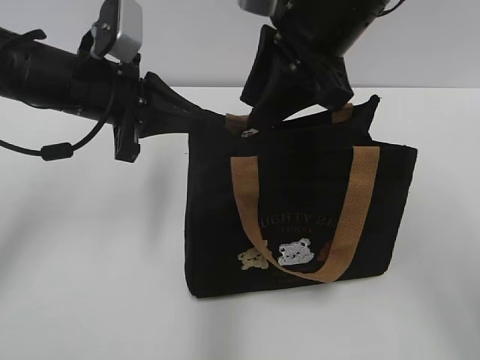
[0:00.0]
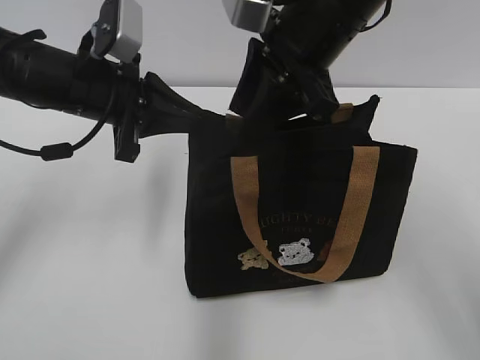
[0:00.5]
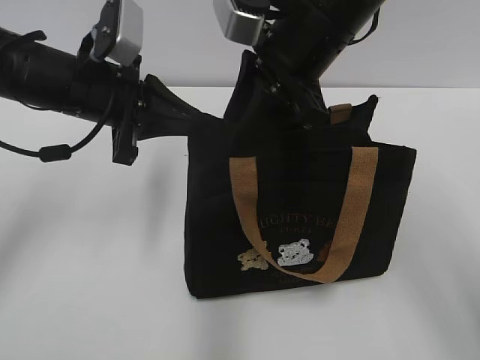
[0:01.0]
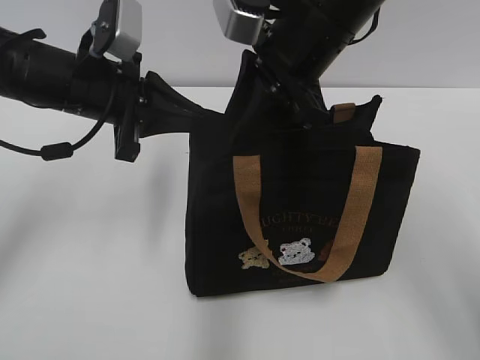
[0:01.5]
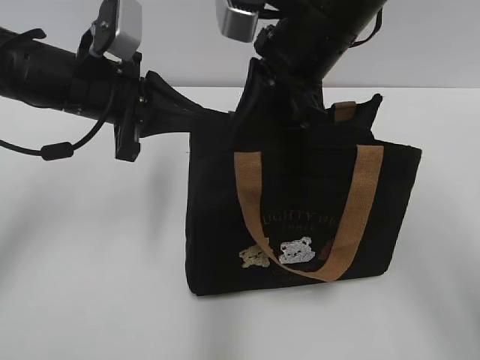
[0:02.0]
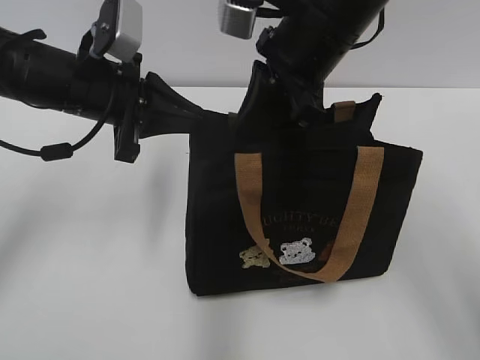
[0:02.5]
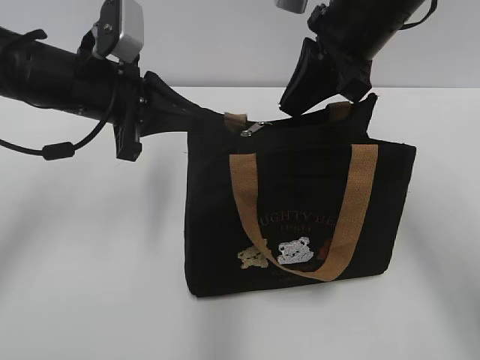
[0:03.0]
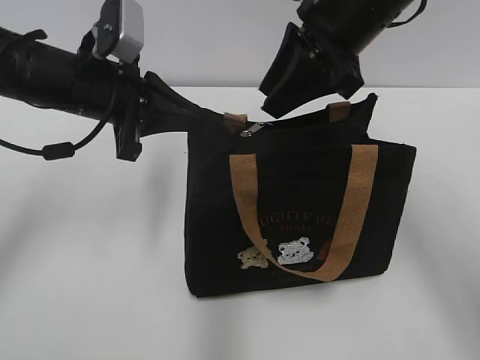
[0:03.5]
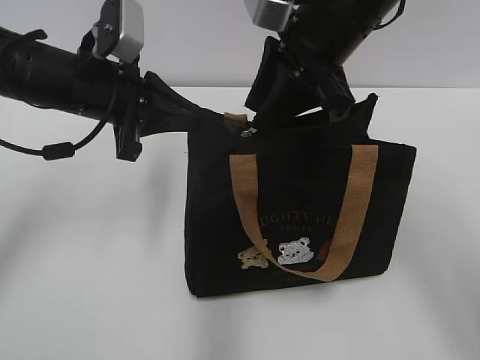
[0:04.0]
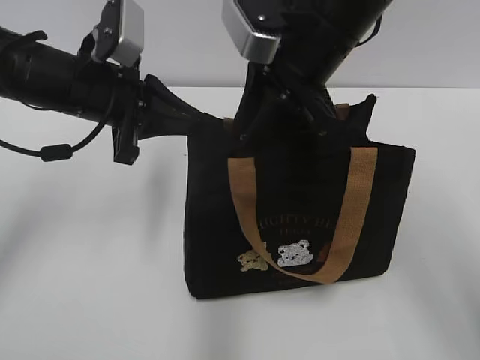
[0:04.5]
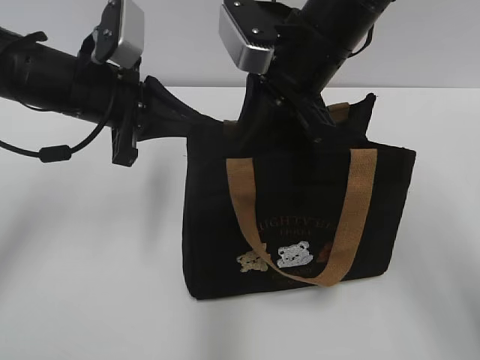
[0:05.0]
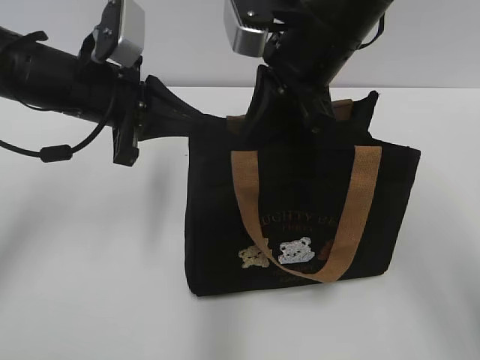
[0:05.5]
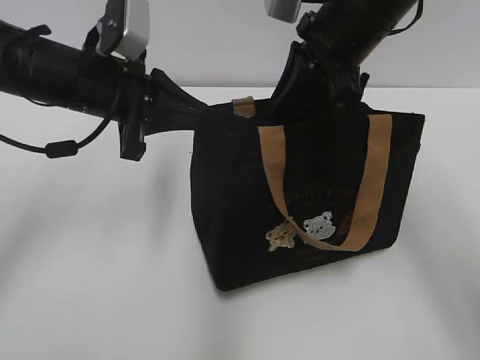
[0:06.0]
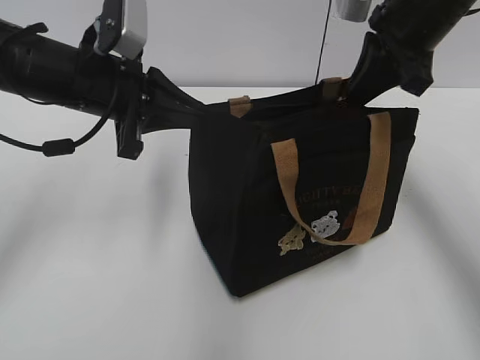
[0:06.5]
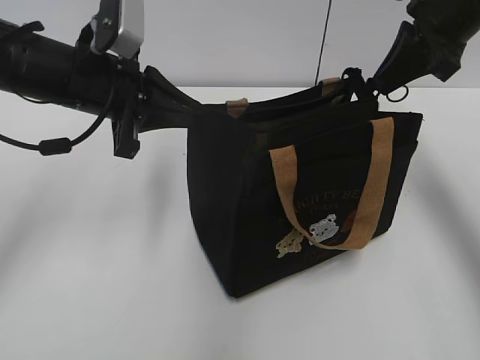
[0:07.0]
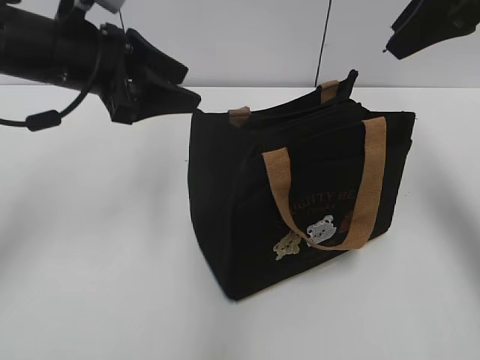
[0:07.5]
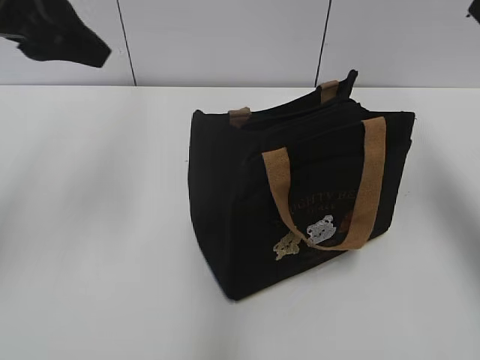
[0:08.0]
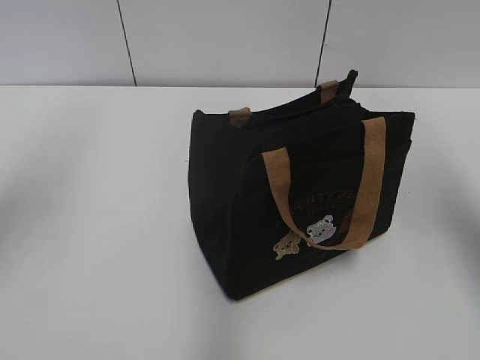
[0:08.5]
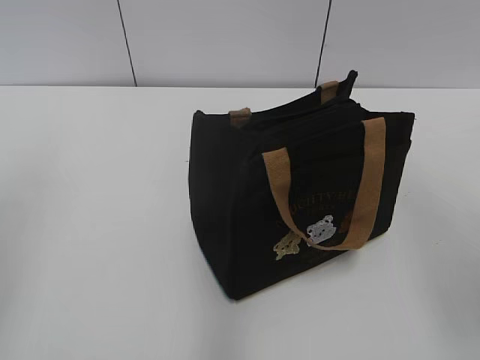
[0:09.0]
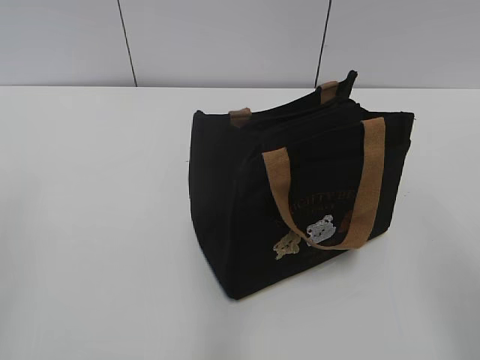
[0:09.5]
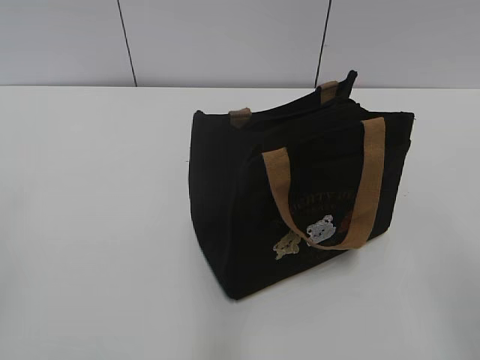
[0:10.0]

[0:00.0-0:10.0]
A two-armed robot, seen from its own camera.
Step, 0:00.0 to 0:07.0: Pull open the zipper with your right hand.
0:00.0 to 0:02.0: The right gripper closes up.
0:02.0 to 0:04.0: The right gripper opens.
0:04.0 to 0:06.0: The right gripper closes.
0:06.0 to 0:08.0: The right gripper moves to the right and upward, approximately 15 cm, and opens; the left gripper goes roughly 15 cm upward and to the left, and opens up.
0:08.0 to 0:10.0: The right gripper goes about 30 cm backward and downward, while the left gripper goes roughly 30 cm backward and to the left.

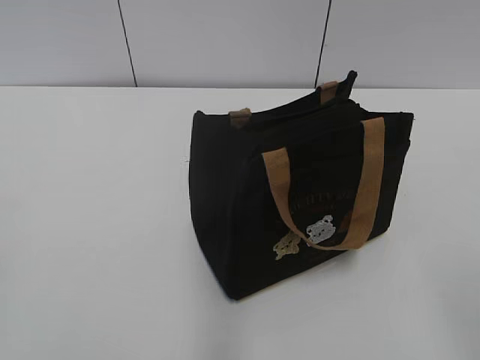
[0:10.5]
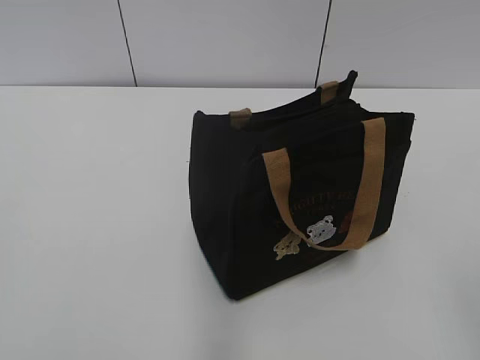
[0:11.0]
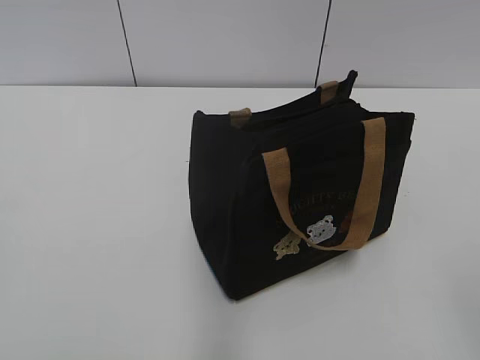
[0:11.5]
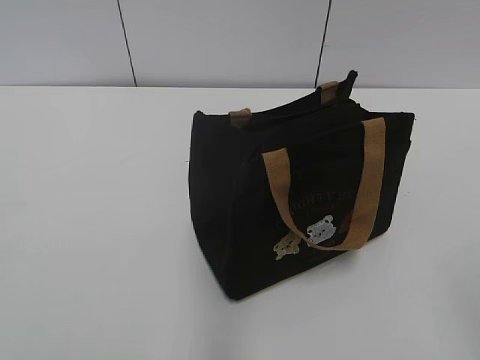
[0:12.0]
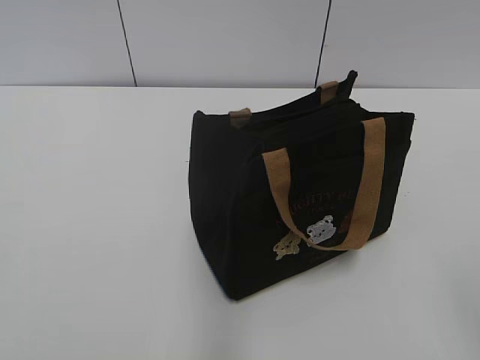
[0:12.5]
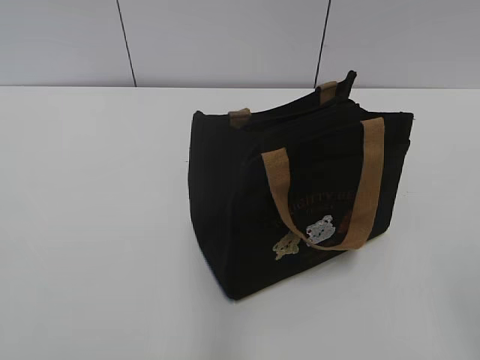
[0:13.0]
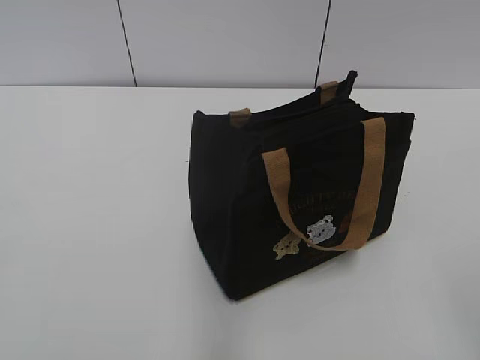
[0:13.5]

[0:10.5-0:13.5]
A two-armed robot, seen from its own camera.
0:12.0 to 0:13.5: The two grippers keep their place.

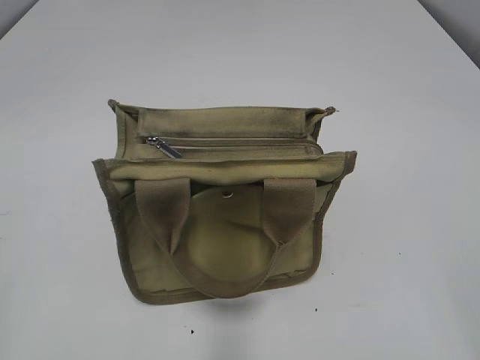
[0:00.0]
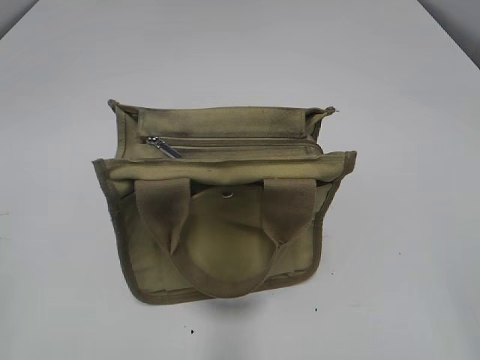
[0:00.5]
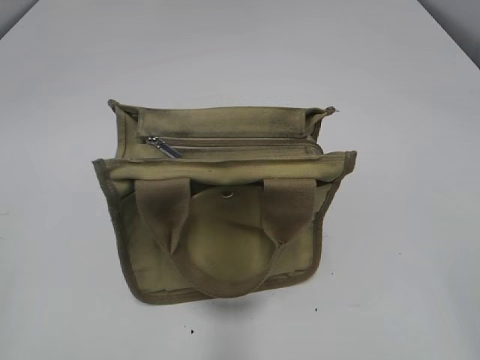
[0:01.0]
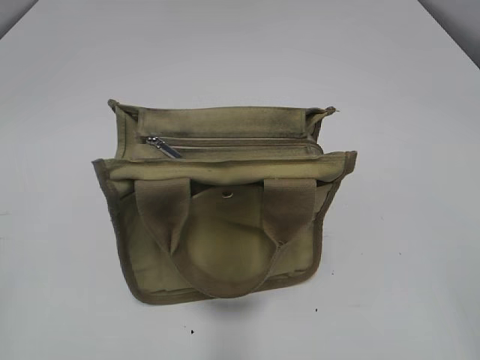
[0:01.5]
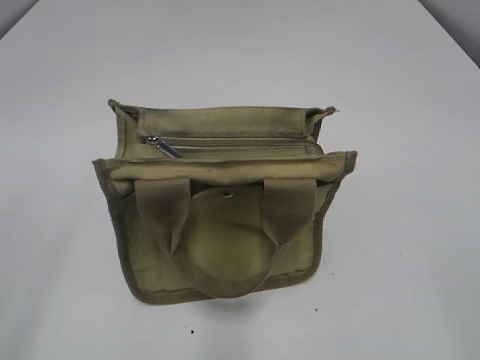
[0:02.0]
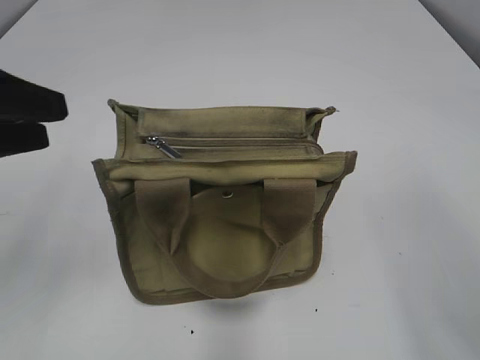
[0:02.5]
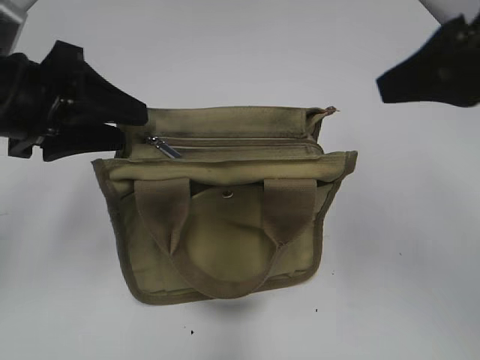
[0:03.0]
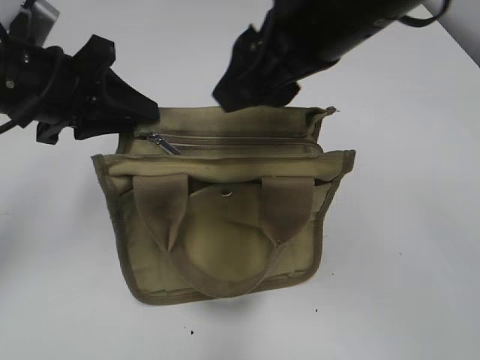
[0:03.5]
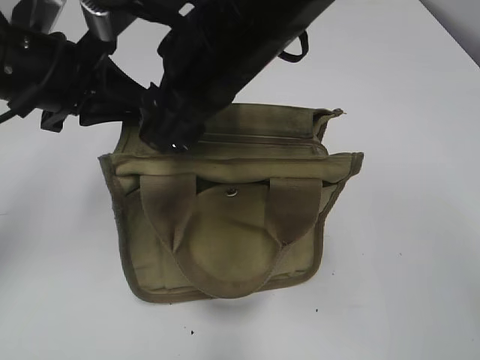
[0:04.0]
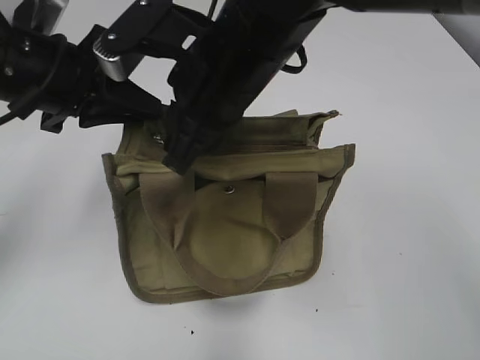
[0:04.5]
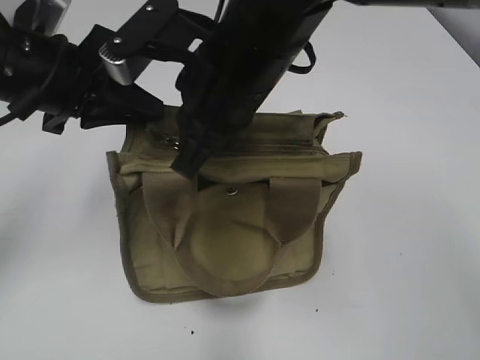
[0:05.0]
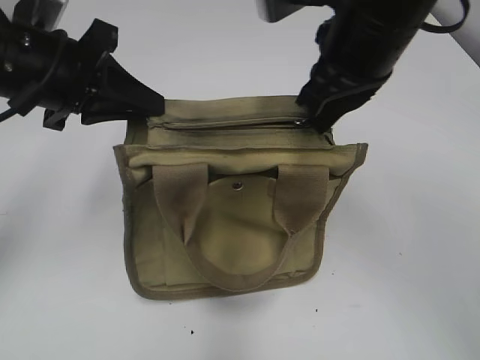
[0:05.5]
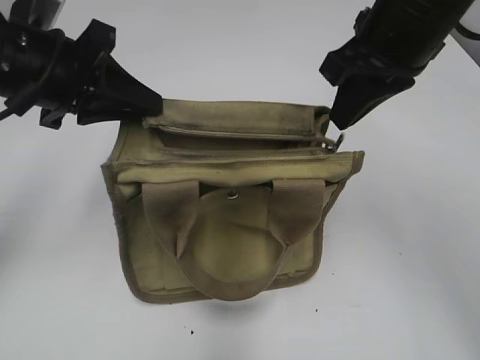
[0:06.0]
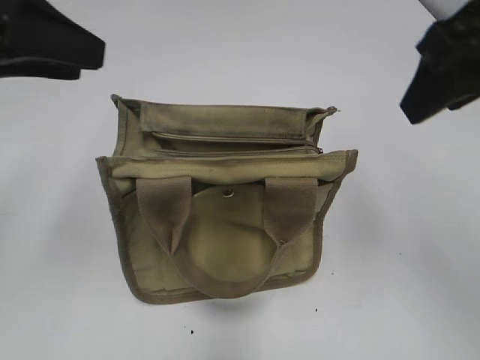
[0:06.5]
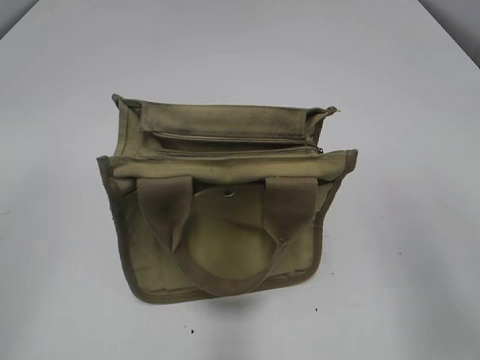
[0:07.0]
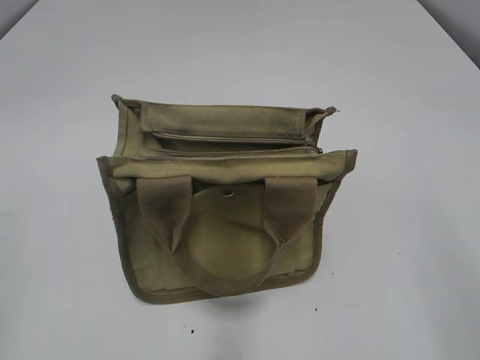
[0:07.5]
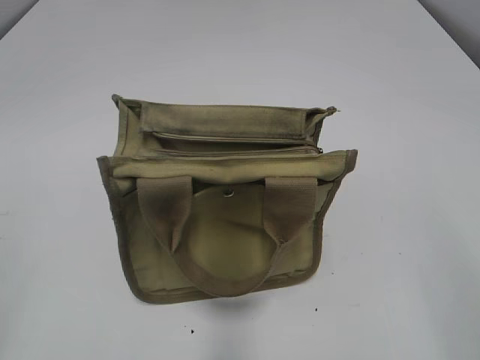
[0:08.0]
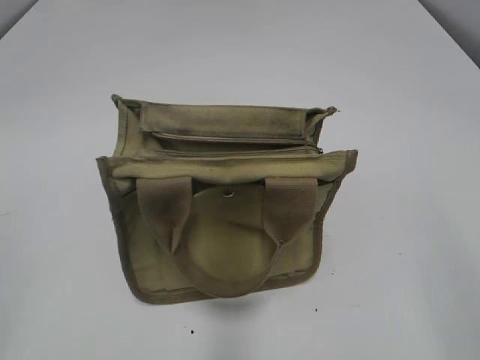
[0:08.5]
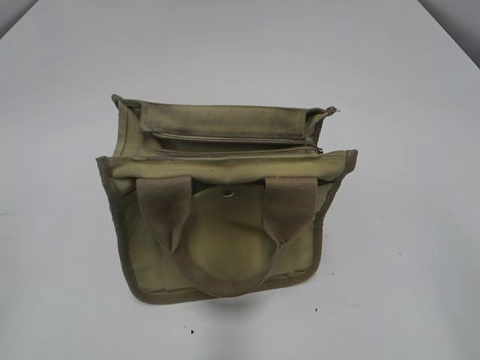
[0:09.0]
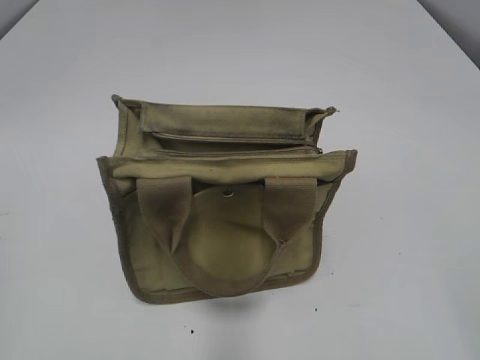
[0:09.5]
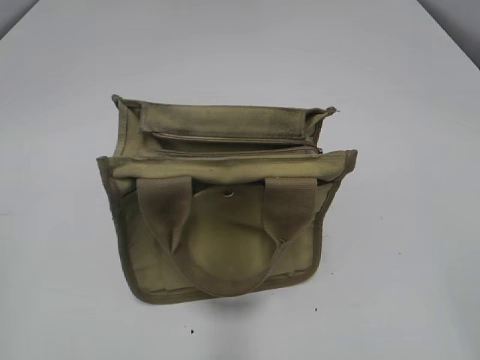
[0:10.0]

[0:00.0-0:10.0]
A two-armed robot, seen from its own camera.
Step, 0:00.0 to 0:06.0: Pull open the zipper with your right hand.
0:02.0 to 0:04.0: The left gripper travels forward and to the right by roughly 25 cm, and closes up. The right gripper is displaced forward and to the left by approximately 40 cm.
0:04.0 to 0:06.0: The right gripper shifts about 15 cm to the right, and closes.
0:06.0 to 0:08.0: The right gripper goes approximately 30 cm backward and to the right, and opens. Meanwhile the left gripper shifts about 30 cm backward and to the left, and opens its fingers.

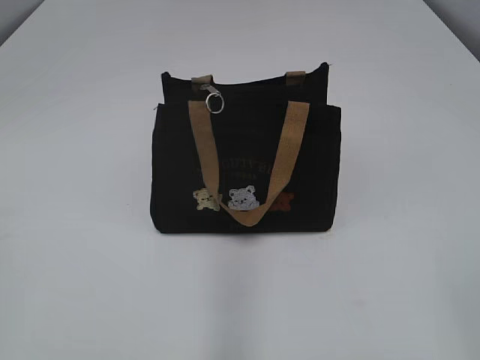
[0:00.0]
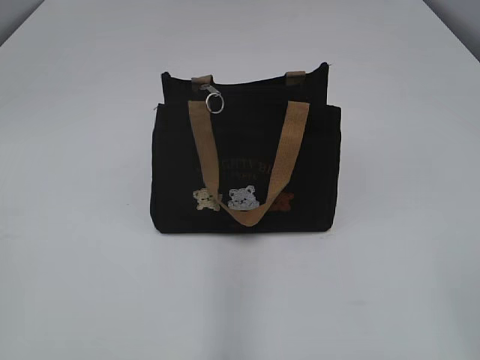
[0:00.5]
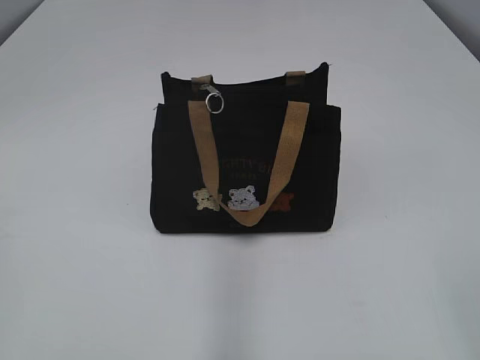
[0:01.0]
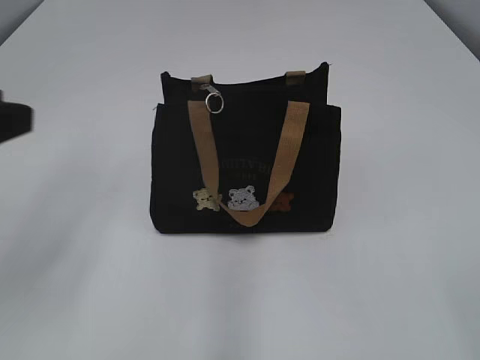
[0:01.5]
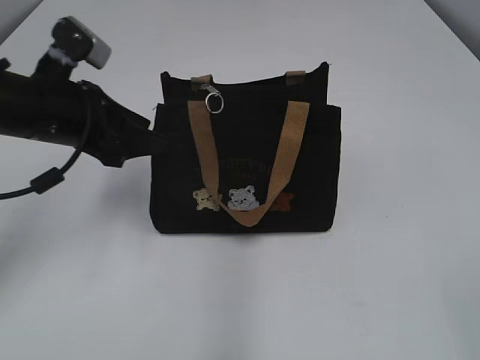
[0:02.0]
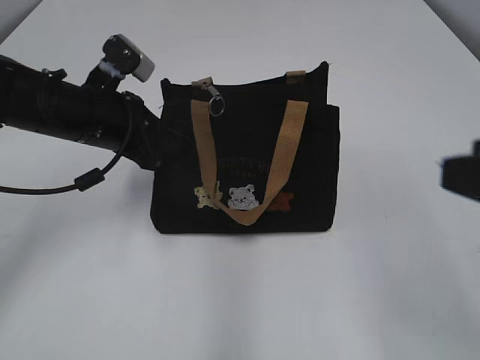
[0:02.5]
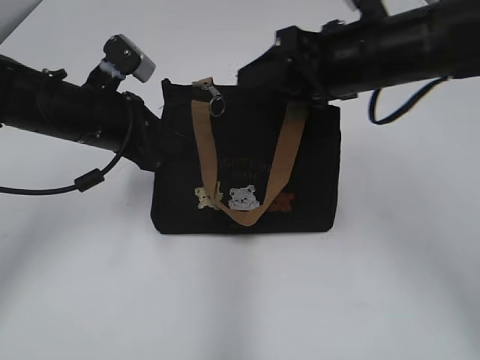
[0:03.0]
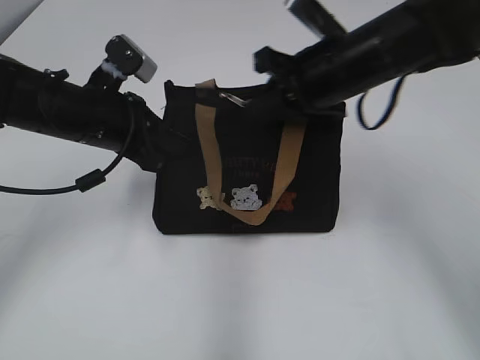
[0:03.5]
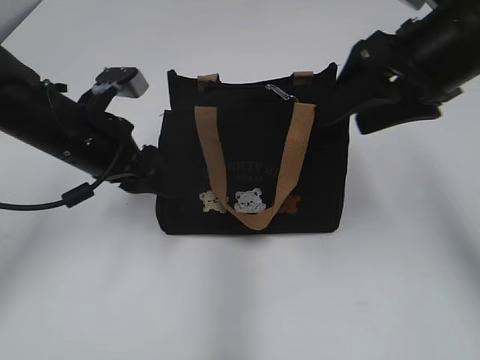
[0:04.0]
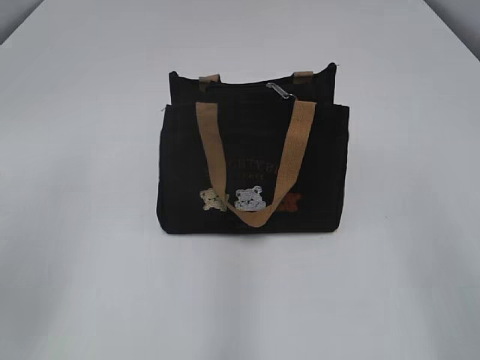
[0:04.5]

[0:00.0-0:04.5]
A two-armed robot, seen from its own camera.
Step, 0:00.0 to 0:03.5: Pull open the zipper with your right hand.
0:02.0 to 0:04.5: The right gripper goes approximately 15 cm forward, and closes and opens again. The left gripper is displaced backward and upward by some 10 cm, and closes its fingers.
